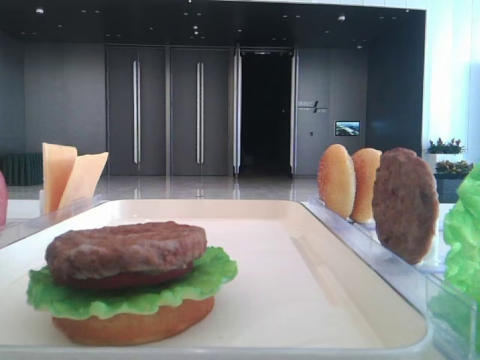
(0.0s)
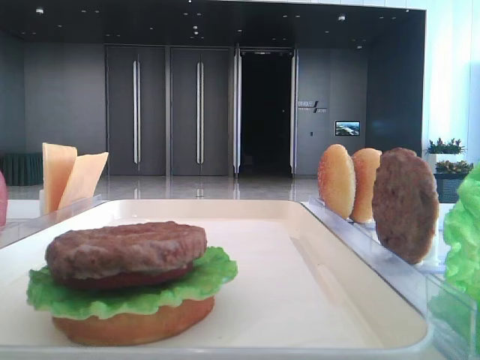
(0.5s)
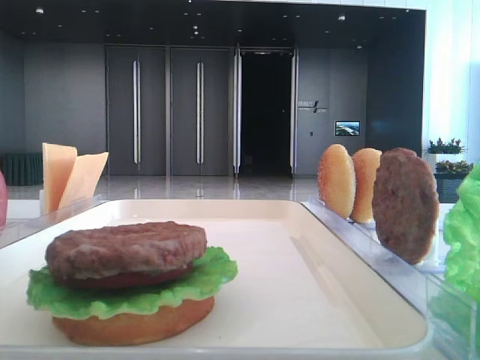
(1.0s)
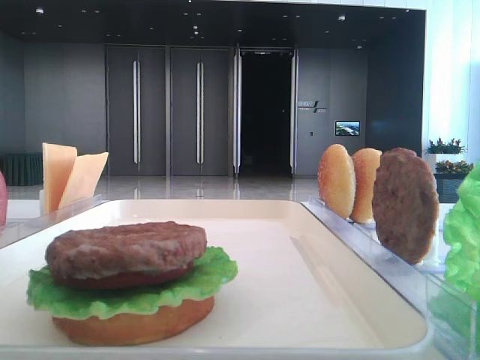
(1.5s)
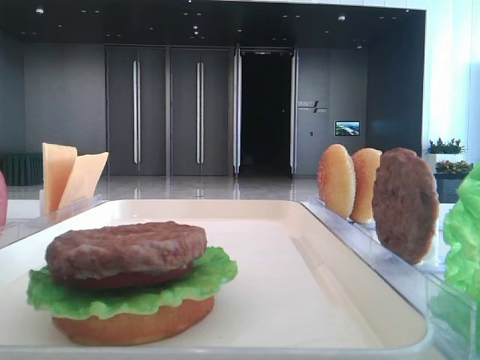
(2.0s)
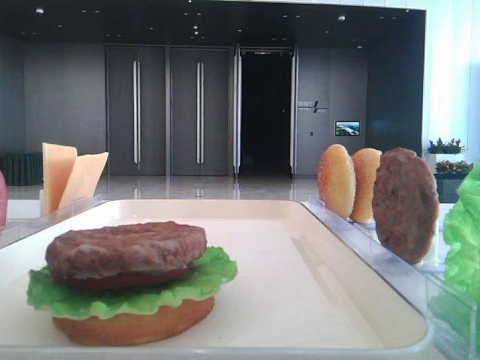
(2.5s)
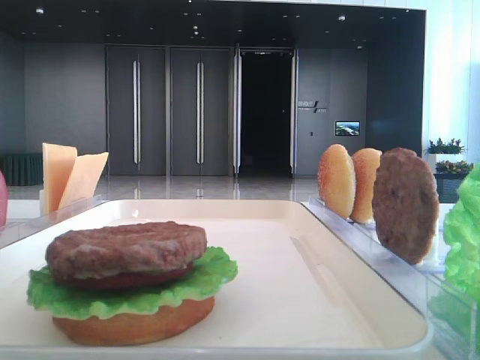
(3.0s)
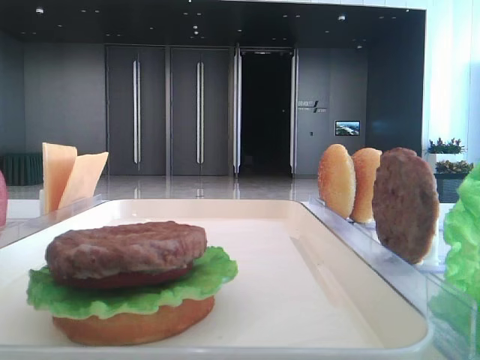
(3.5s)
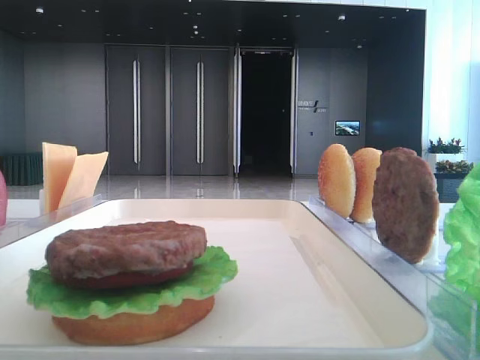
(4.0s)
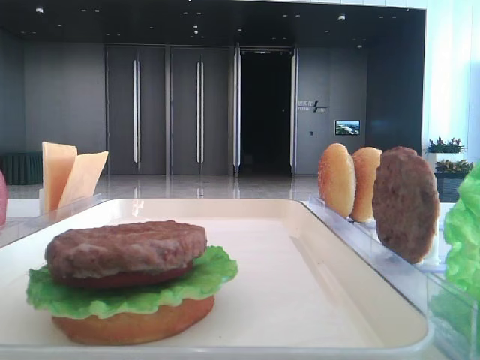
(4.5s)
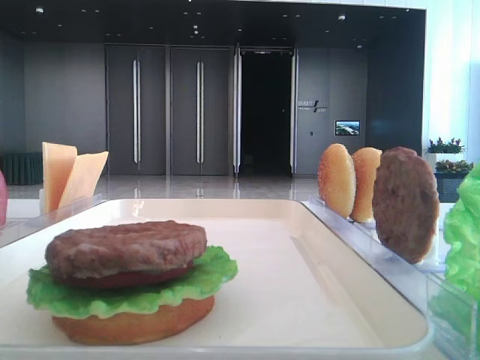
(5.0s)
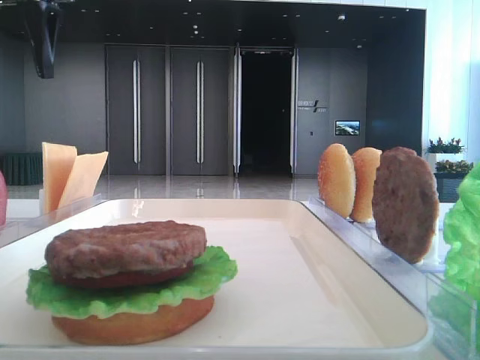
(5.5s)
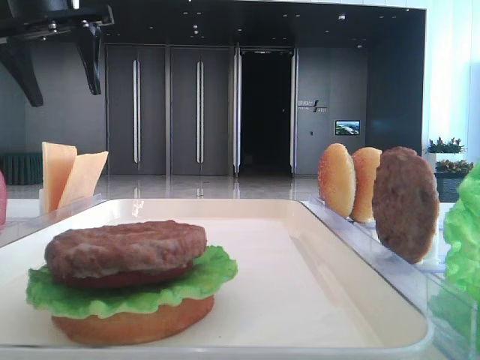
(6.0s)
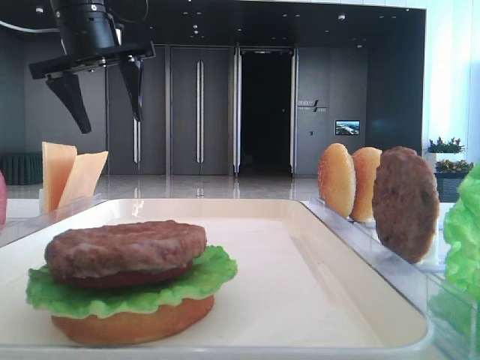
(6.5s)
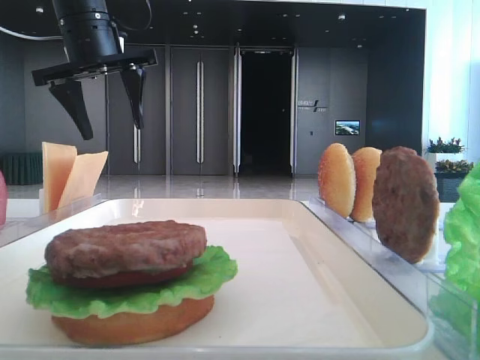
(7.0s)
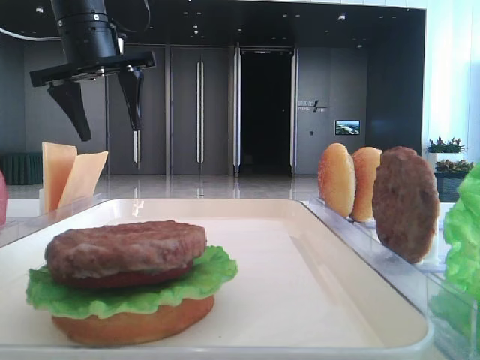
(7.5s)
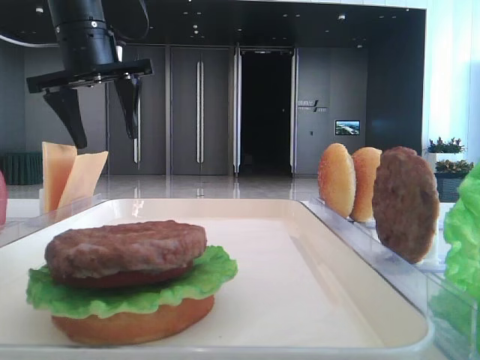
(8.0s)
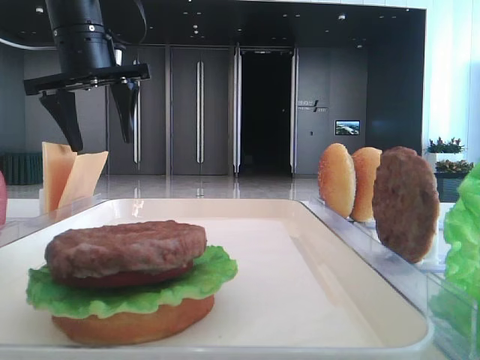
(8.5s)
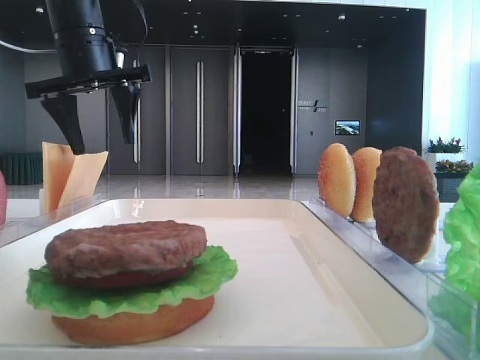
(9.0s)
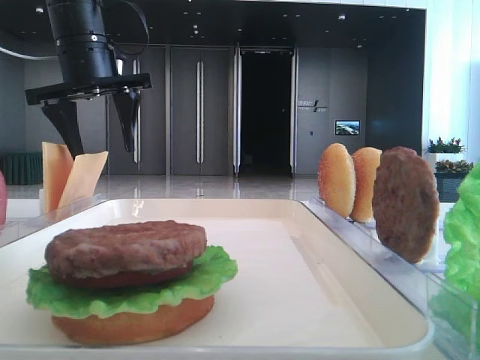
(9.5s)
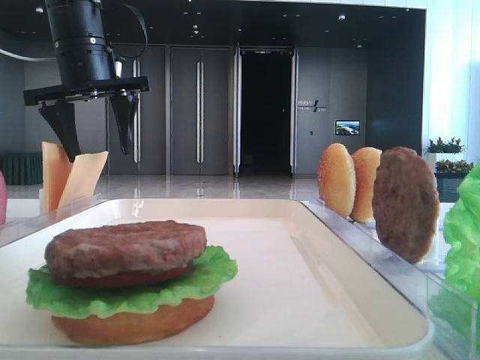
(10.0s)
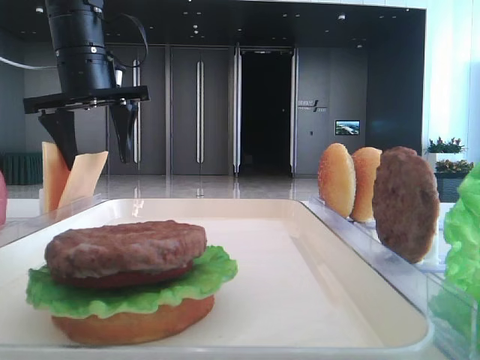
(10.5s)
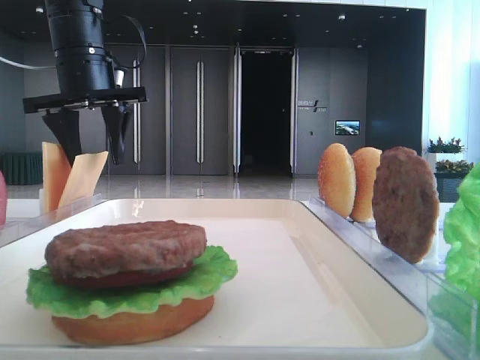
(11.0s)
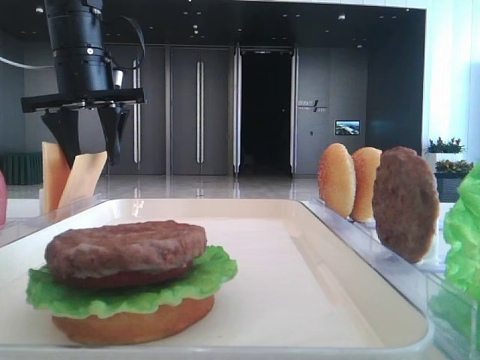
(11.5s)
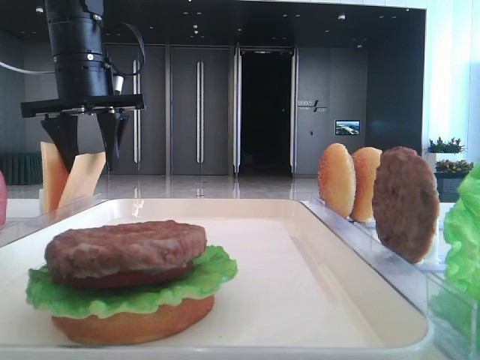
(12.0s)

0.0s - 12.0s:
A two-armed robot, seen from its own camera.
4.0s - 6.0s: The left gripper moves forward and to the right, some 20 cm.
6.0s - 8.0s: The left gripper shifts by about 5 cm.
8.0s - 12.0s: The grippers move only a little.

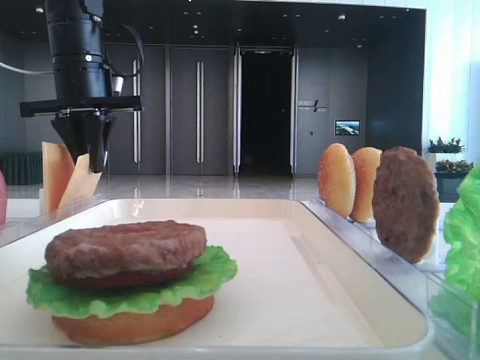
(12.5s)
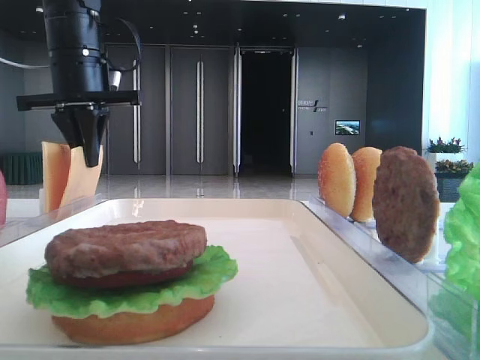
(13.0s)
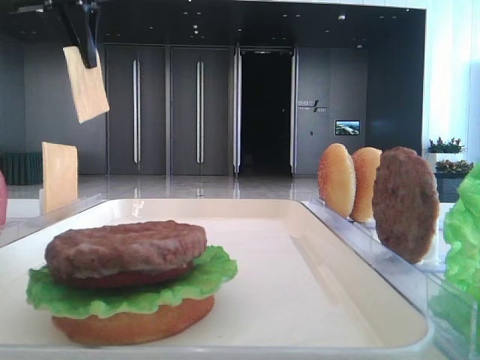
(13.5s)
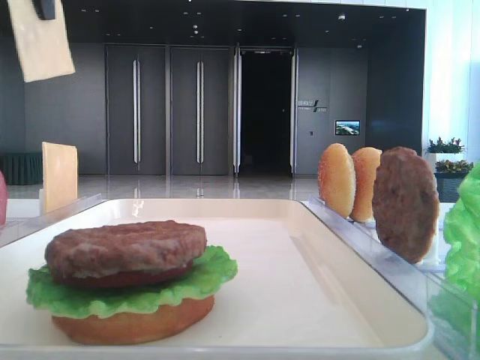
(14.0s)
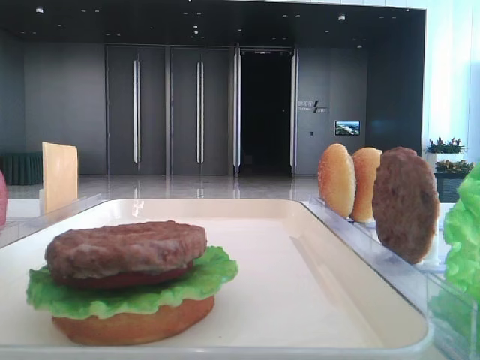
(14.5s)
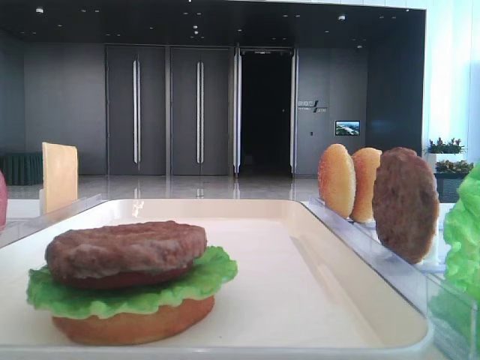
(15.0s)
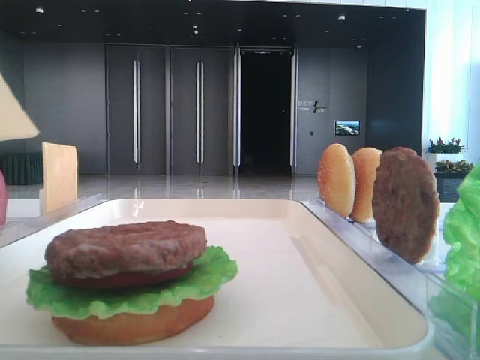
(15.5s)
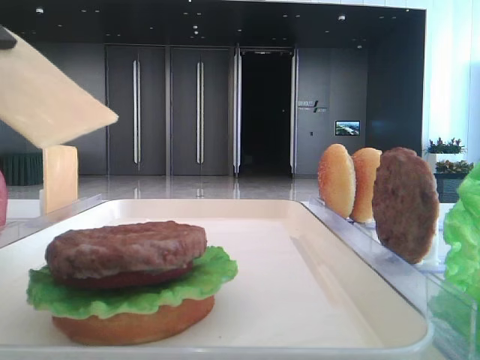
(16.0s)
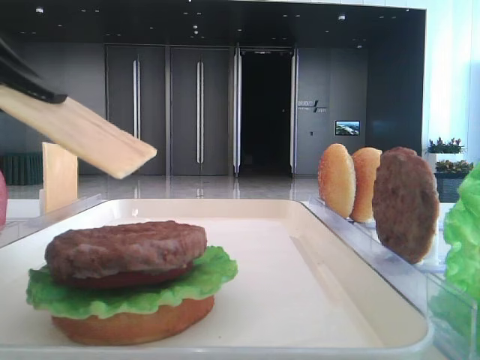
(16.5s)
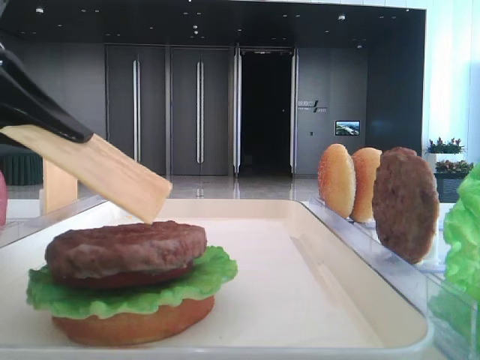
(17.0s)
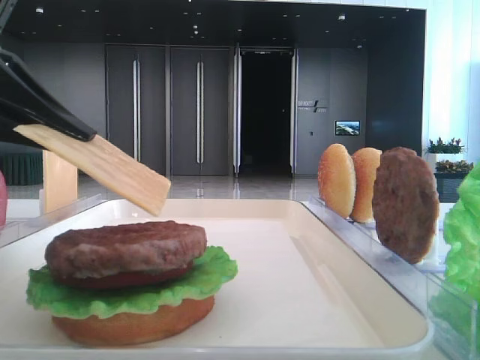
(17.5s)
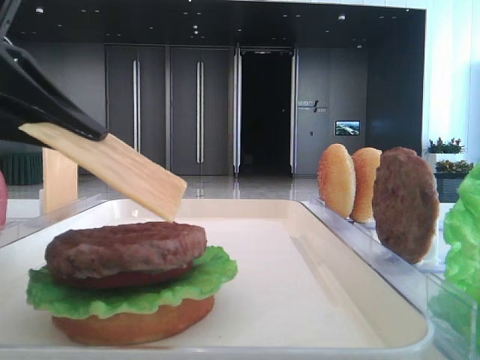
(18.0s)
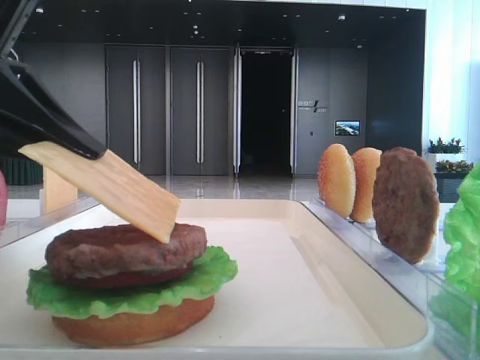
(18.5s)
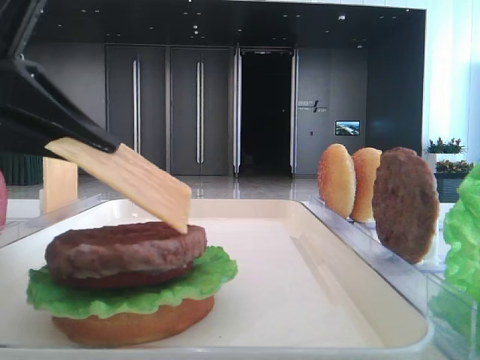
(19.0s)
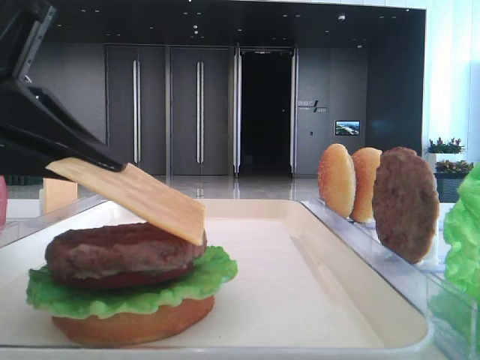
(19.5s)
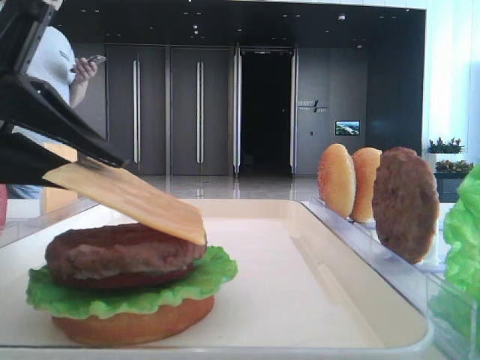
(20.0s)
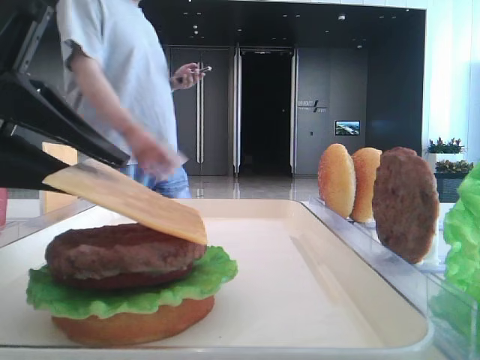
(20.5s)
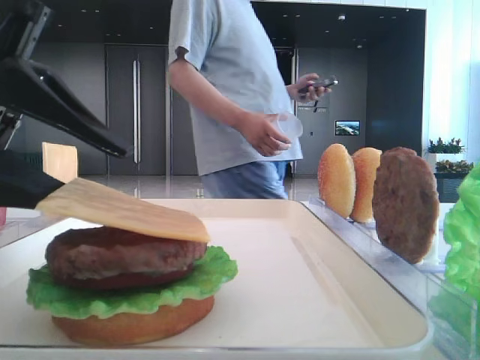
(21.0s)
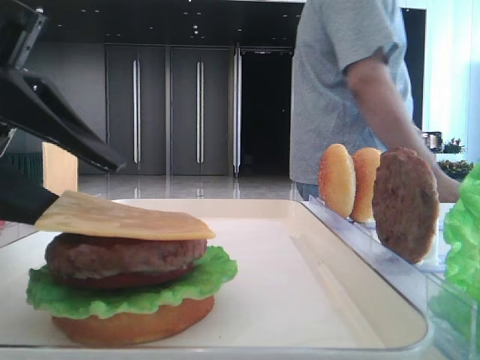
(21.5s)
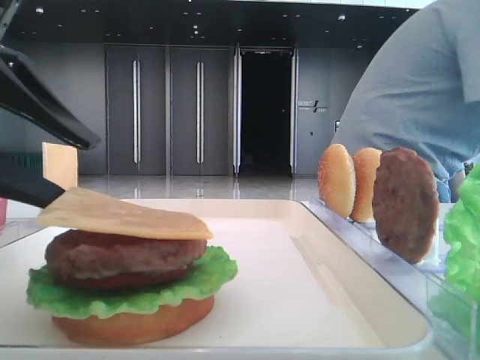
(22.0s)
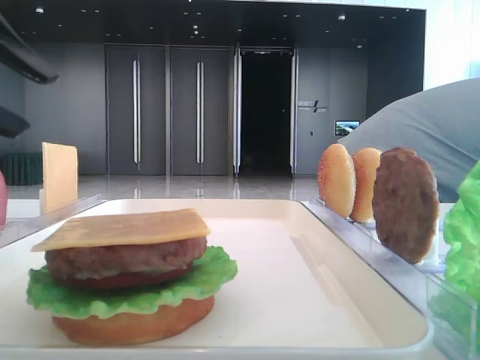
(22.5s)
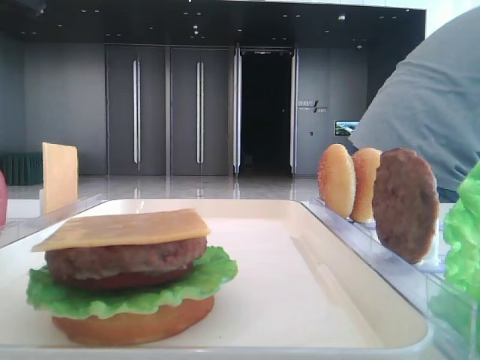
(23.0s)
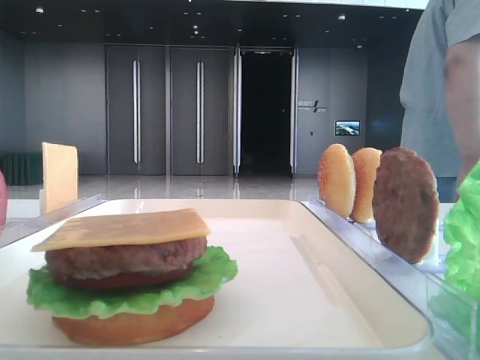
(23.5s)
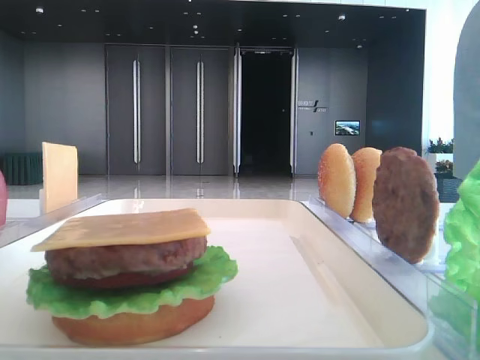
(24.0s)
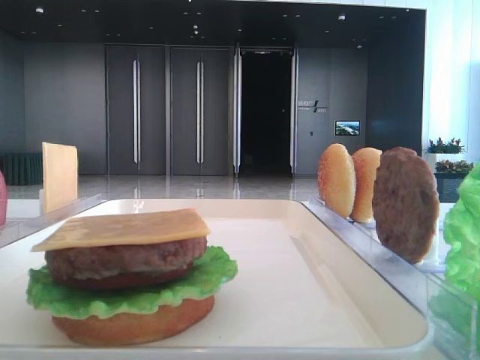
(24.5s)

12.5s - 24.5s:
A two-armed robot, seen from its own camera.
Step, 13.0s - 21.5s: Place the cheese slice on the patty with the left hand.
12.5s - 14.5s: The left gripper shifts approximately 25 cm backward and upward.
14.5s - 16.5s: The left gripper shifts approximately 15 cm downward.
16.5s - 20.5s: The grippers stay close to where they were, moving slightly.
20.5s - 22.5s: The left gripper shifts about 5 cm upward.
22.5s - 24.5s: The left gripper heads upward, forward and to the left, covering roughly 20 cm.

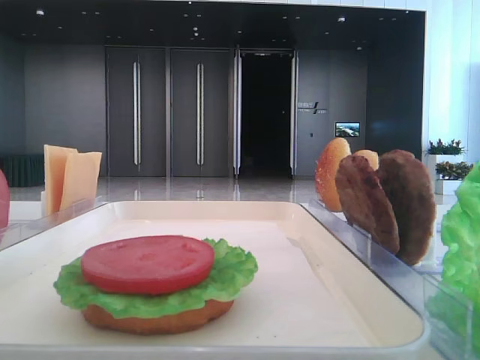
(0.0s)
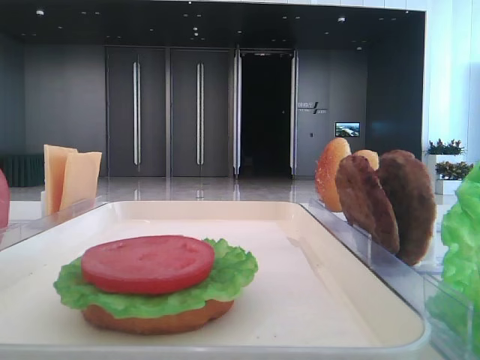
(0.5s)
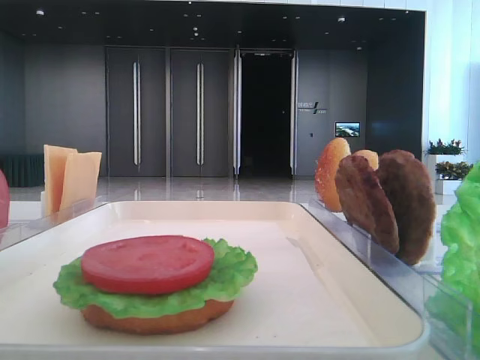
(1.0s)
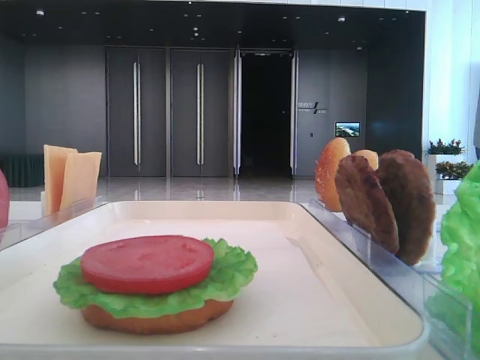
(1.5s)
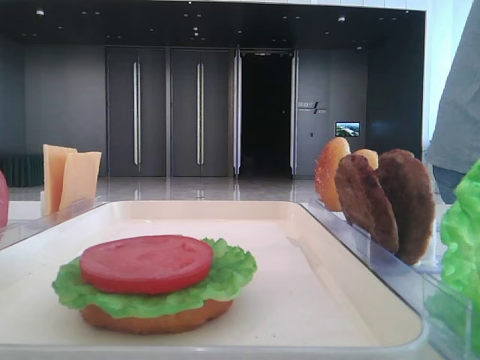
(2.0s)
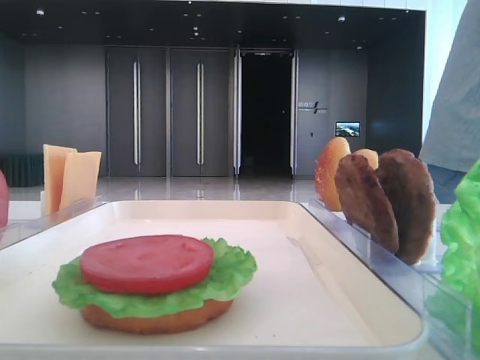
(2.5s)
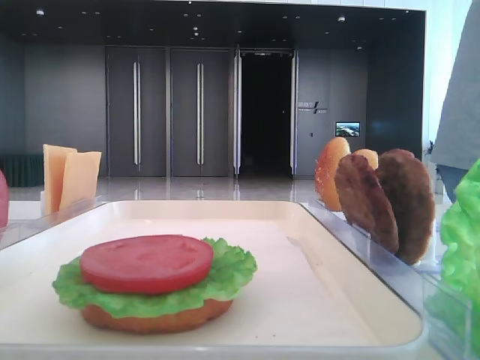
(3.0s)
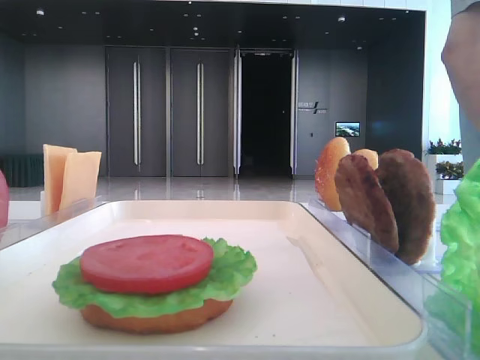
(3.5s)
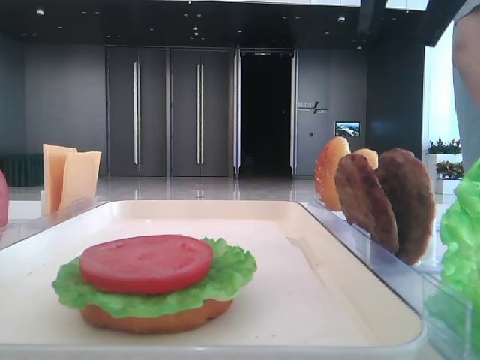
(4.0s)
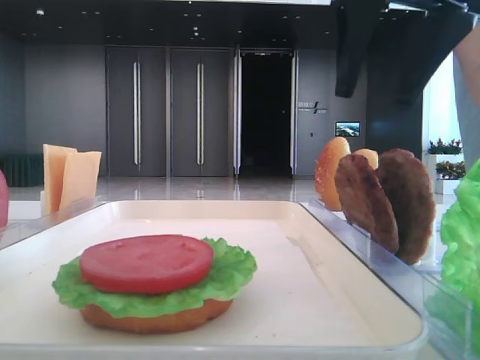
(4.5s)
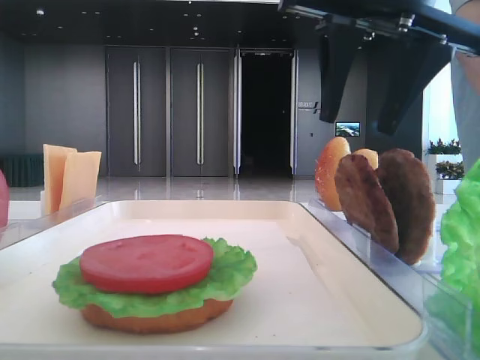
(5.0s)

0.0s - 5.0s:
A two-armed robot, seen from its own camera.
2.5s - 5.0s: The right gripper goes about 20 cm to the left.
